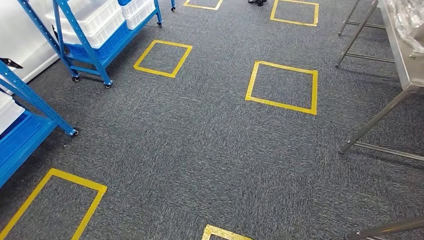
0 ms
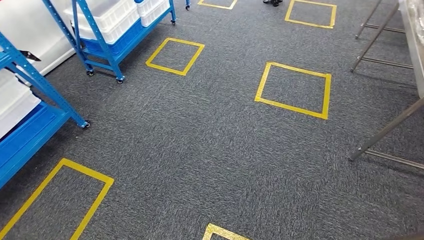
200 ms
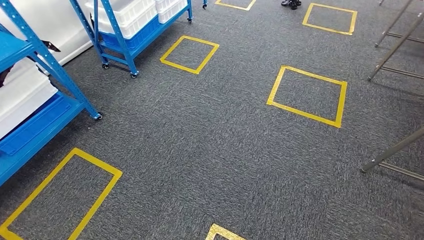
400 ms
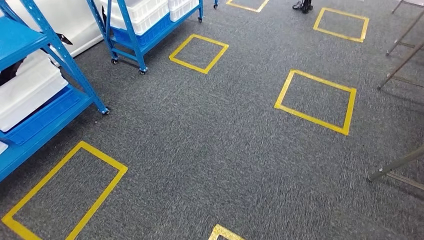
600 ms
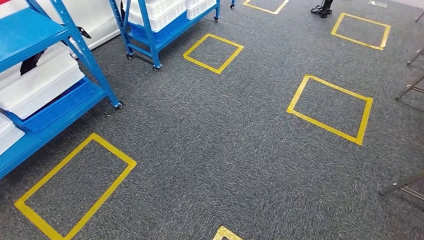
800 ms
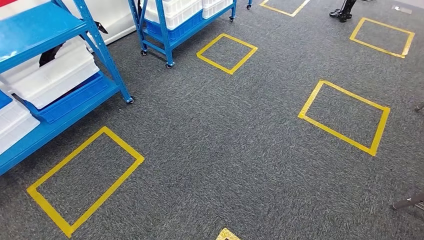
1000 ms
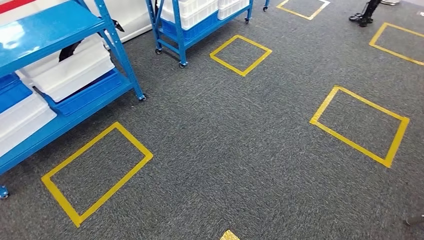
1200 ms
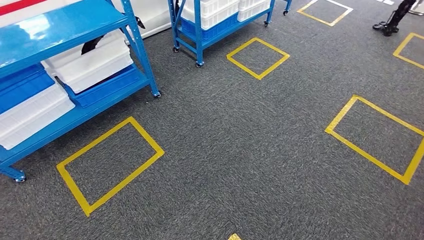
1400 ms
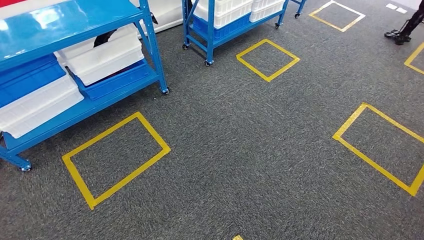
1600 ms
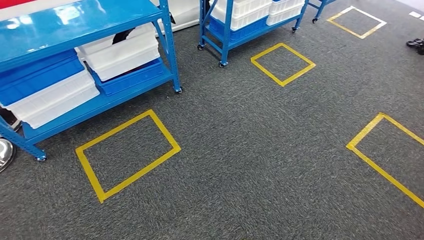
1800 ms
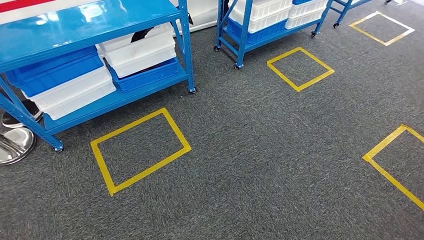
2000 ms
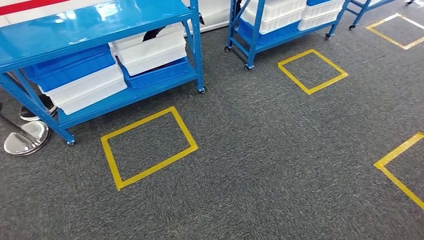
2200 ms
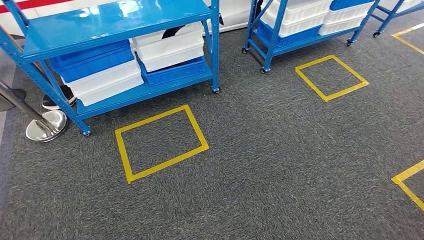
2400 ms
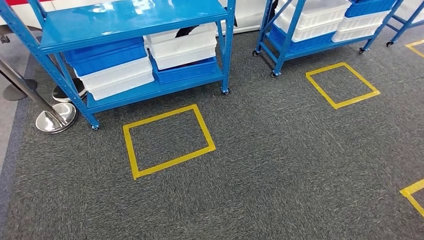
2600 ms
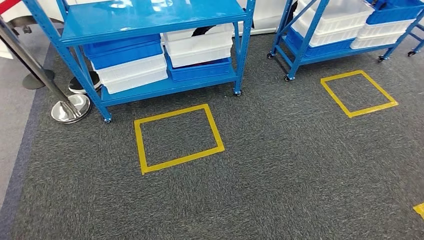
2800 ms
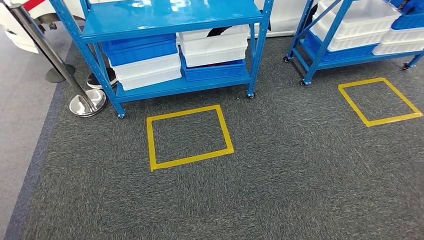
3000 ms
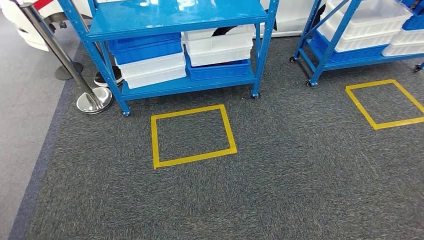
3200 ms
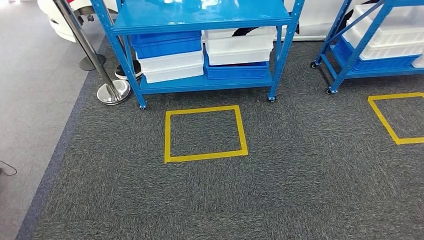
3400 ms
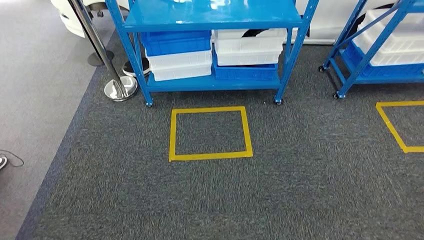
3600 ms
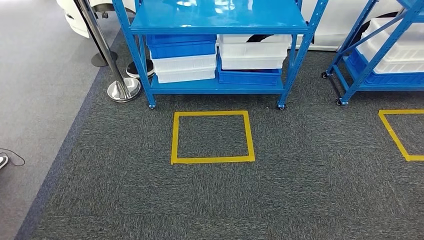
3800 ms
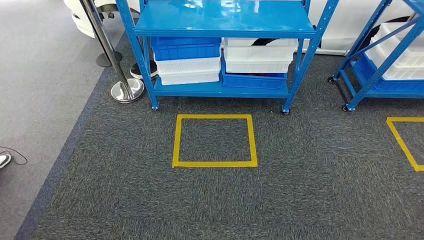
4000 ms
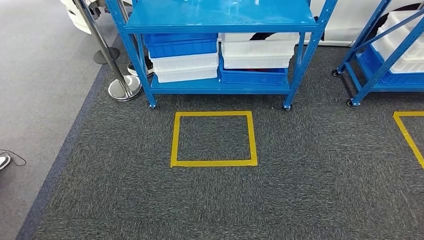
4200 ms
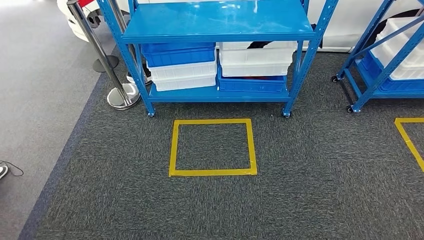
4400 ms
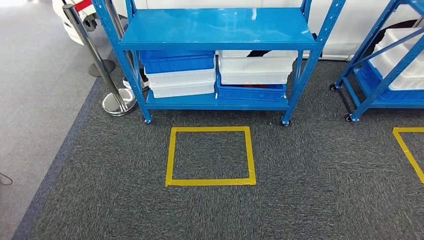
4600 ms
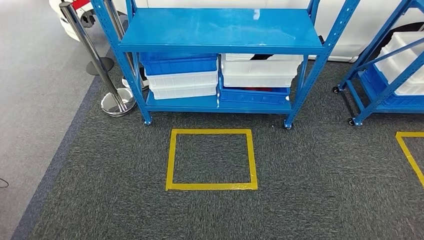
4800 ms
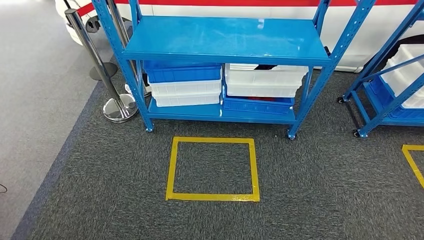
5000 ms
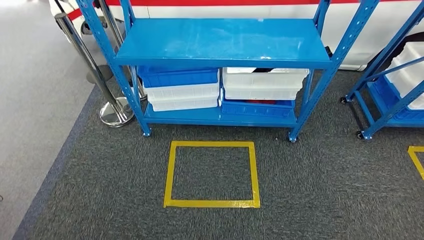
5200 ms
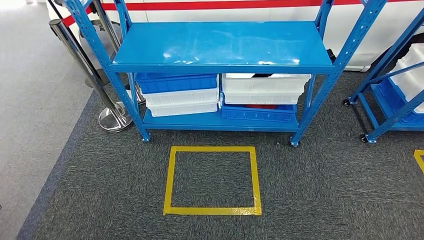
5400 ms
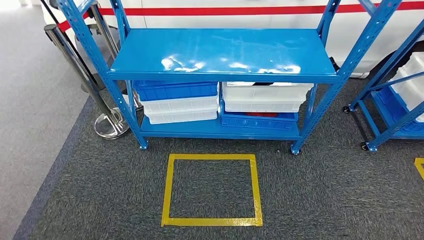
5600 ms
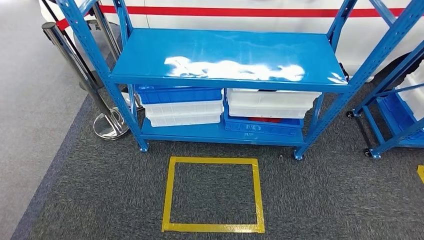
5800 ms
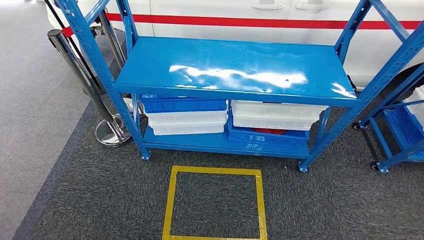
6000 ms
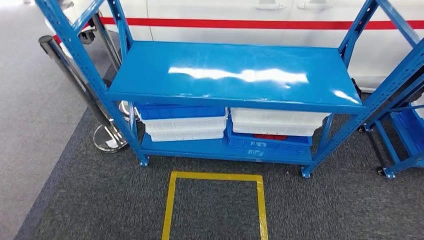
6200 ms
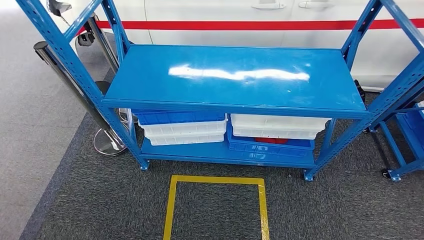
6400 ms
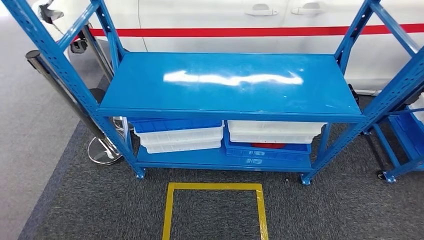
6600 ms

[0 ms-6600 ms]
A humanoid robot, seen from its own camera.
Step, 0 ms to 6600 ms: Return to the initial position at the shelf.
